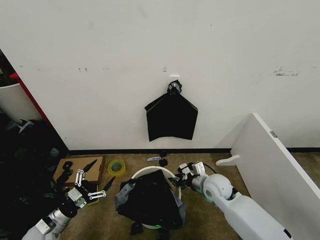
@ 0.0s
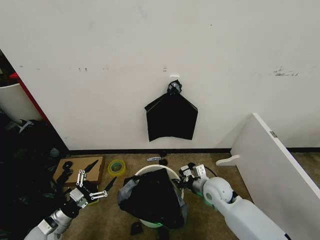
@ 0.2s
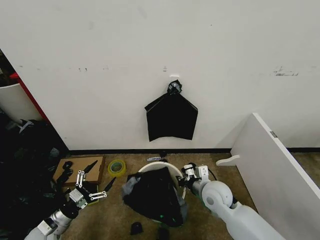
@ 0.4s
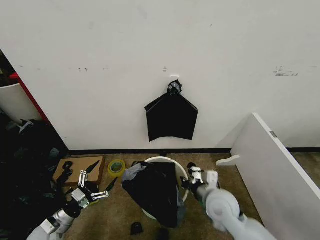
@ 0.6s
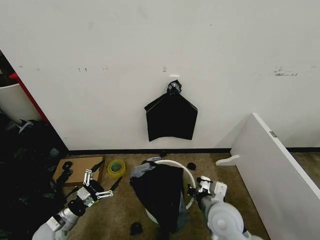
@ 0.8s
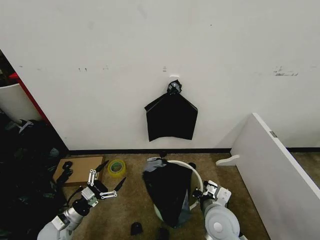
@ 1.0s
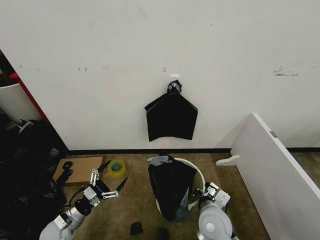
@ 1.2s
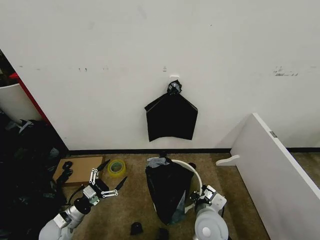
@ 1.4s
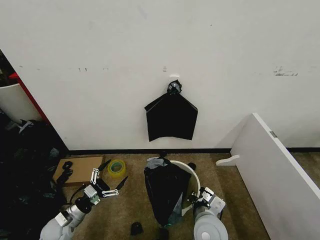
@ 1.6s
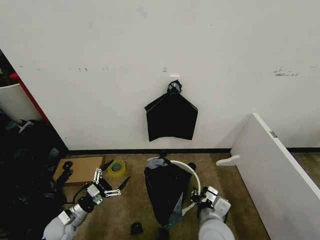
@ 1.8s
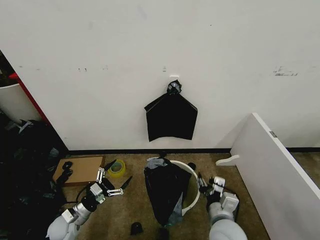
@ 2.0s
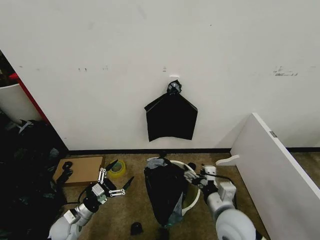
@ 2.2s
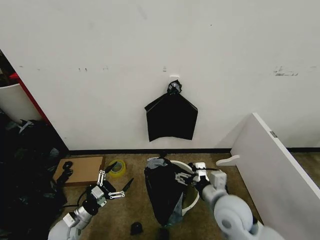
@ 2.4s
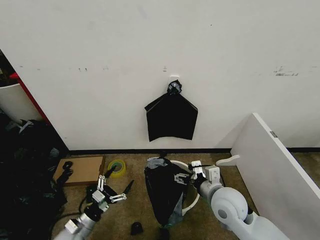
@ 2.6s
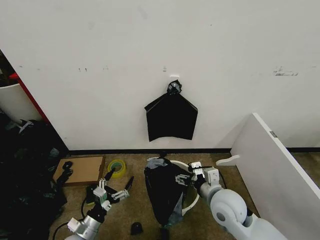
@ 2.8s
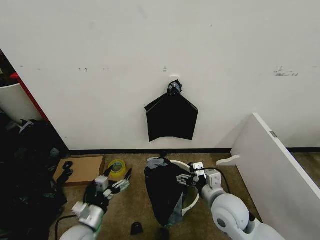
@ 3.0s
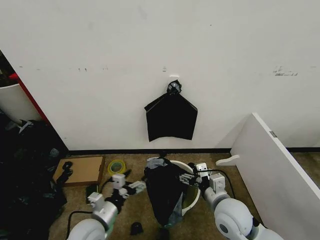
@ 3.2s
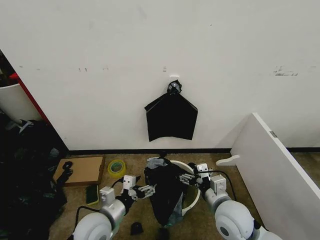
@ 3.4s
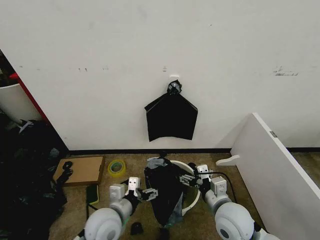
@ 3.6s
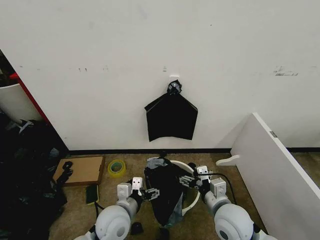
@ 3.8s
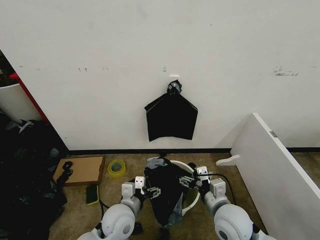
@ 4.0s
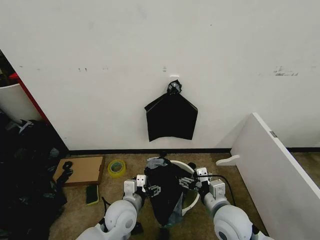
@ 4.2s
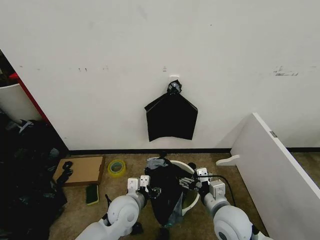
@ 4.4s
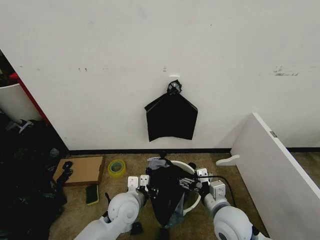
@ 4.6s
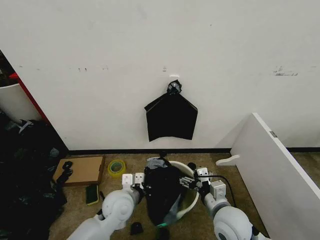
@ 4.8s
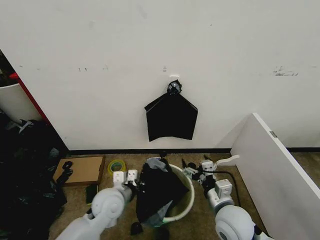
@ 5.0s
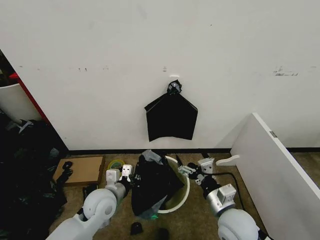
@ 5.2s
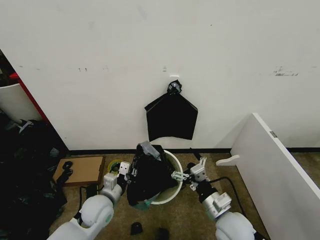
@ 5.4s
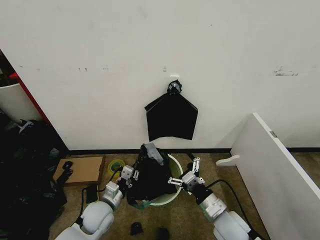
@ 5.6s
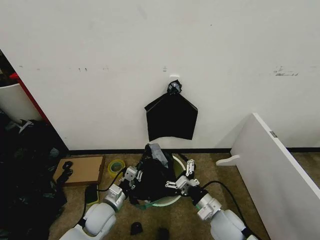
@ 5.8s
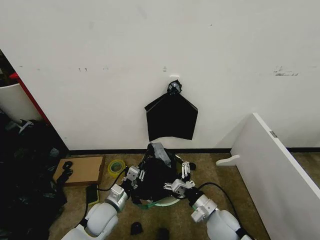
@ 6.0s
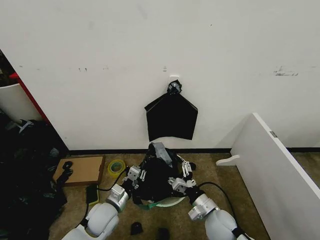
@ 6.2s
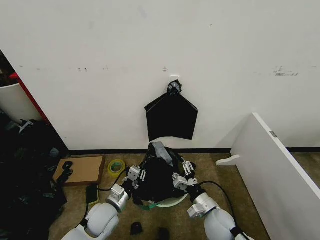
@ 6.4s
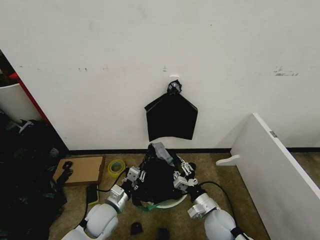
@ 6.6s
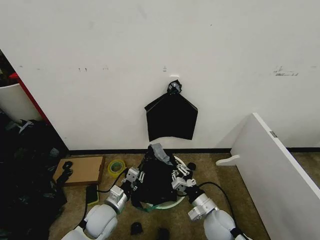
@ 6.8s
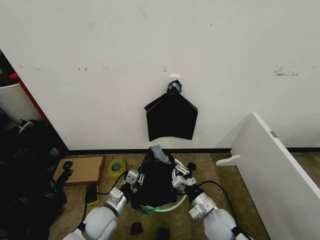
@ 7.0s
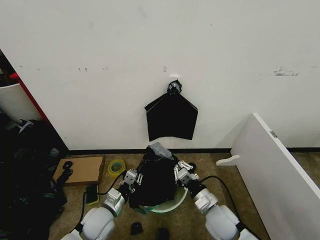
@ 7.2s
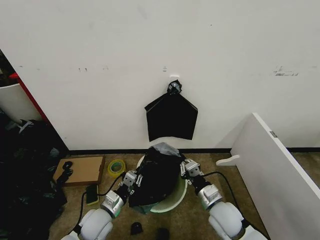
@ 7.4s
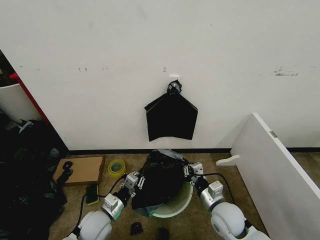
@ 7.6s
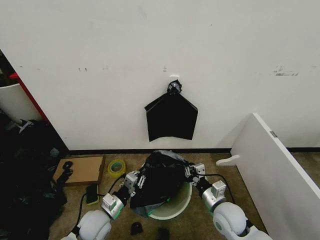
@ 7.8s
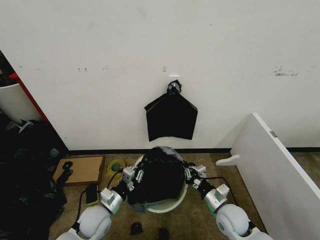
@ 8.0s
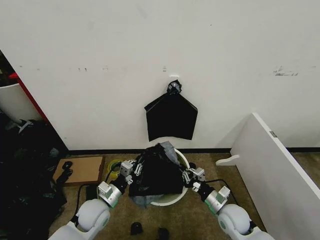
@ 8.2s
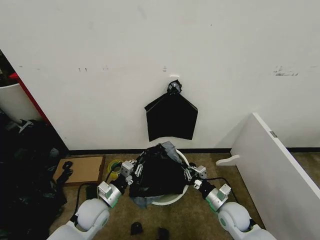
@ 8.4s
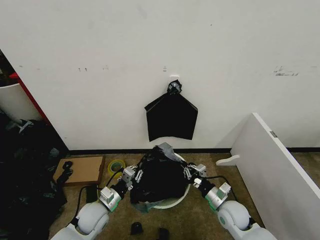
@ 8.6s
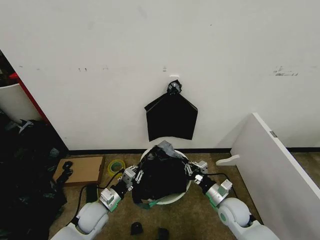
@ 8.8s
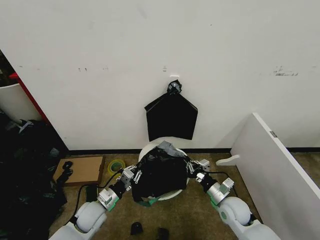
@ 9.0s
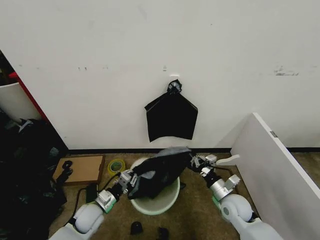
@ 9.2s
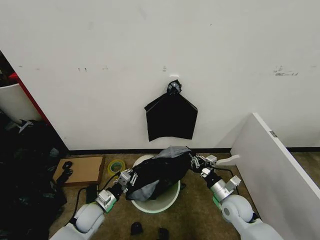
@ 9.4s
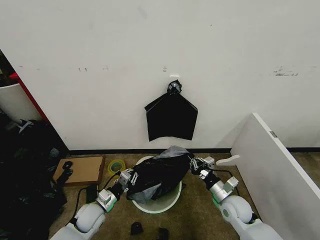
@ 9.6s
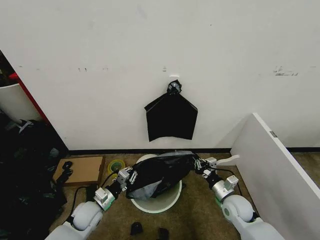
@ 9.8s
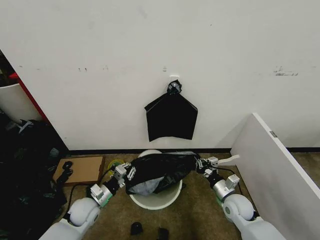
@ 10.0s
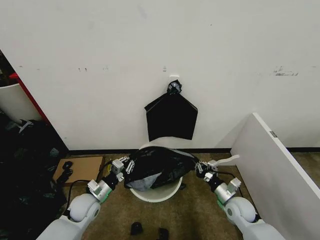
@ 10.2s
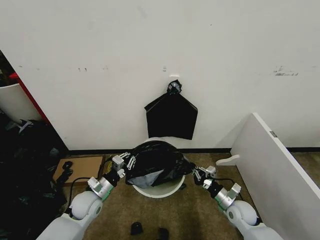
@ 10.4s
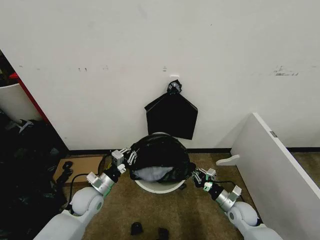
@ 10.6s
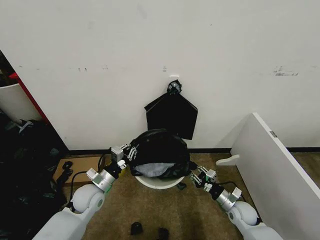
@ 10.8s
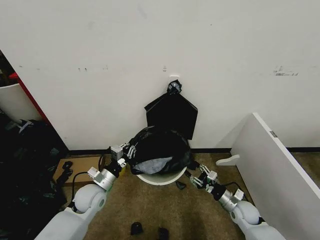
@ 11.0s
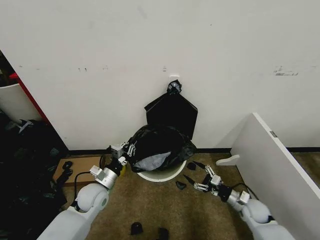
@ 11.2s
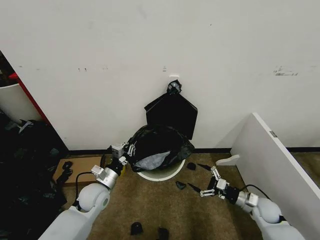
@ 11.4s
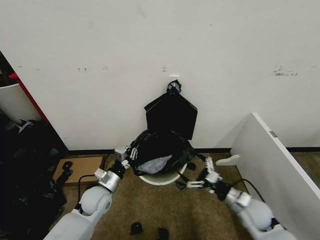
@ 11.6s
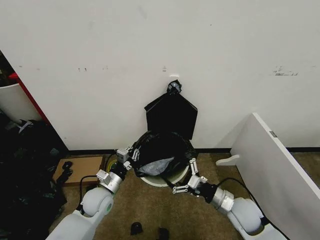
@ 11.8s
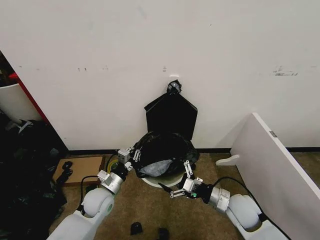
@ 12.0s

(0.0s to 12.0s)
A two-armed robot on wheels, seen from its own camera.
Task of the whole recording: Place the garbage bag over the trash bin.
0.0s - 1.6s: The right gripper goes about 15 cm backward and to the left.
1.6s - 3.0s: The left gripper goes approximately 10 cm to the right and upward, while the right gripper goes approximately 10 cm upward and to the right, and opens up.
3.0s - 4.4s: The left gripper travels to the right and forward by about 15 cm.
4.4s - 6.0s: The right gripper heads downward, covering roughly 5 cm, while the left gripper goes about 10 cm to the left and downward, and closes its fingers.
6.0s - 7.6s: The right gripper closes its fingers.
7.6s - 9.0s: The right gripper moves to the right, roughly 5 cm. Meanwhile the left gripper changes place by roughly 5 cm.
9.0s - 10.4s: The right gripper goes roughly 5 cm downward.
10.4s - 12.0s: The right gripper travels upward by roughly 10 cm, and opens its fingers.

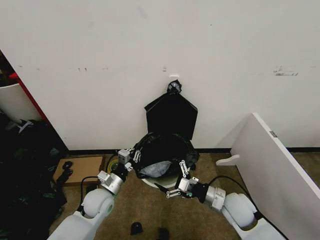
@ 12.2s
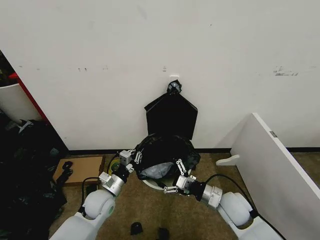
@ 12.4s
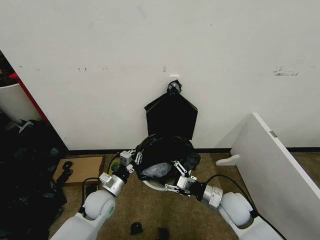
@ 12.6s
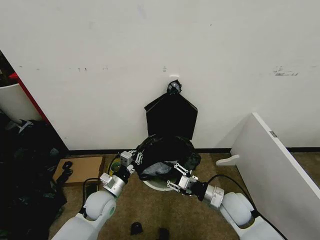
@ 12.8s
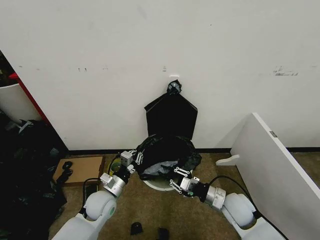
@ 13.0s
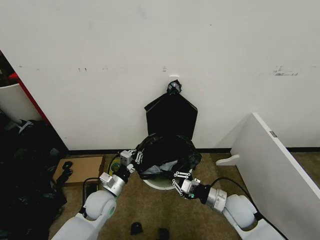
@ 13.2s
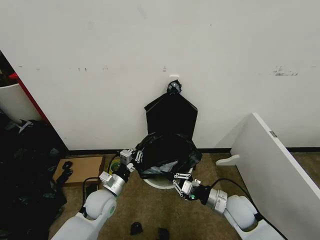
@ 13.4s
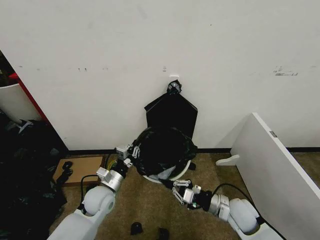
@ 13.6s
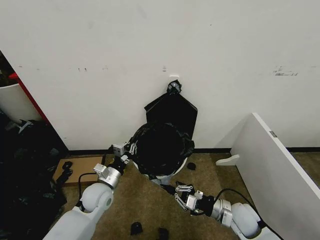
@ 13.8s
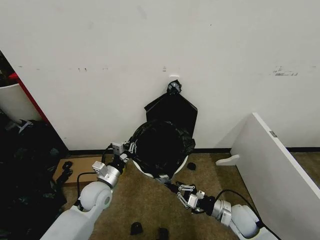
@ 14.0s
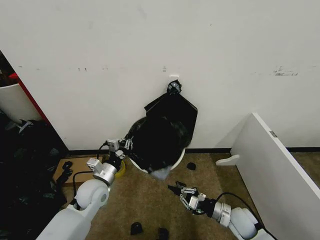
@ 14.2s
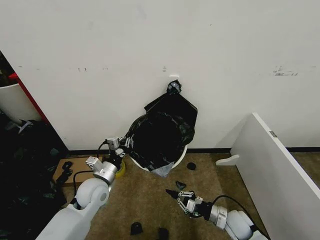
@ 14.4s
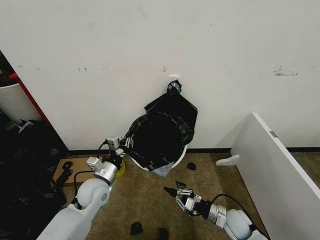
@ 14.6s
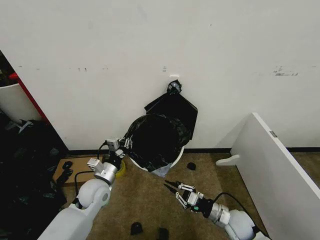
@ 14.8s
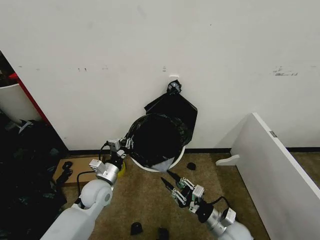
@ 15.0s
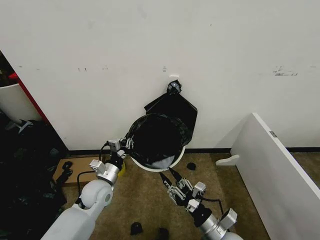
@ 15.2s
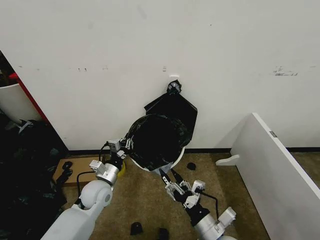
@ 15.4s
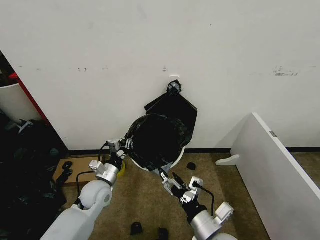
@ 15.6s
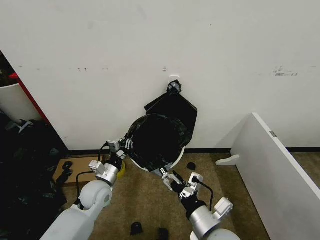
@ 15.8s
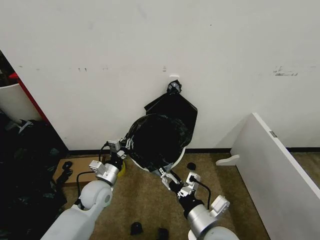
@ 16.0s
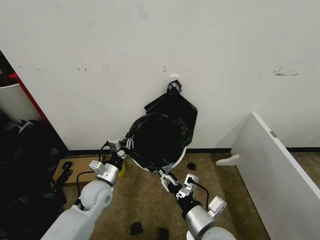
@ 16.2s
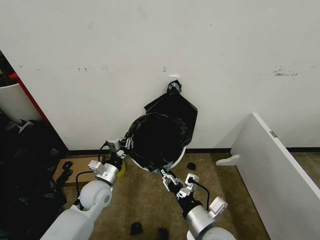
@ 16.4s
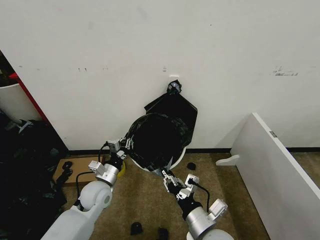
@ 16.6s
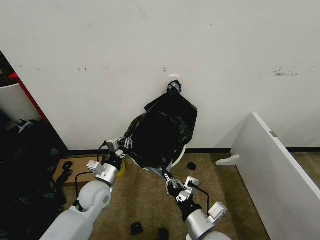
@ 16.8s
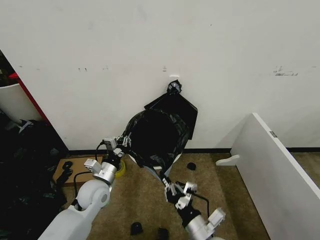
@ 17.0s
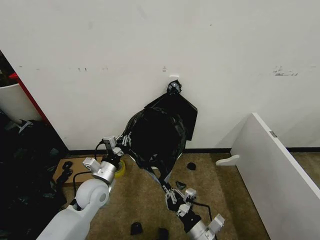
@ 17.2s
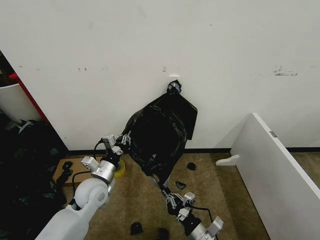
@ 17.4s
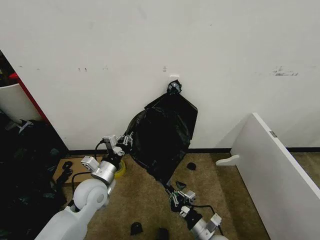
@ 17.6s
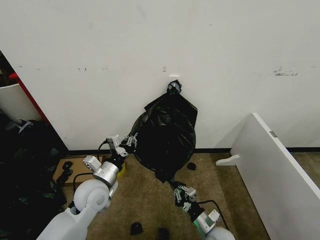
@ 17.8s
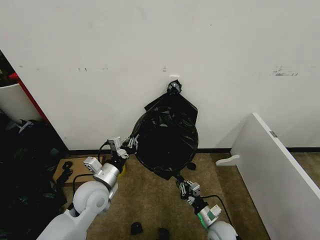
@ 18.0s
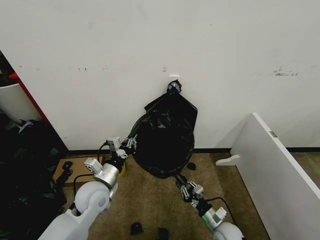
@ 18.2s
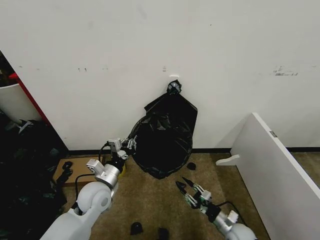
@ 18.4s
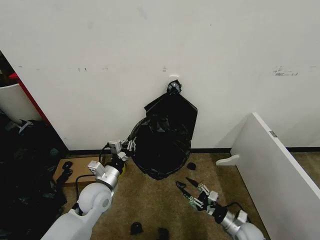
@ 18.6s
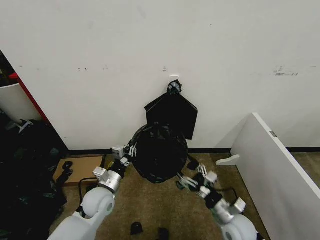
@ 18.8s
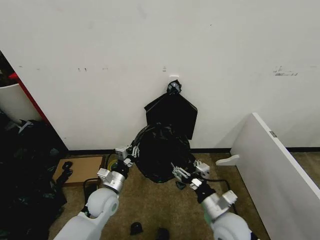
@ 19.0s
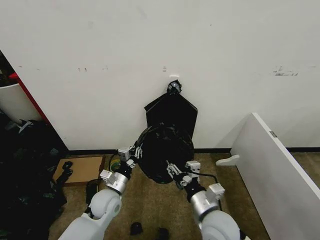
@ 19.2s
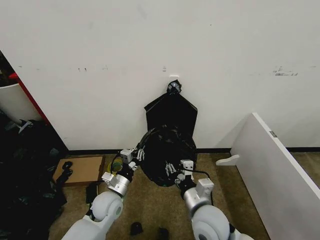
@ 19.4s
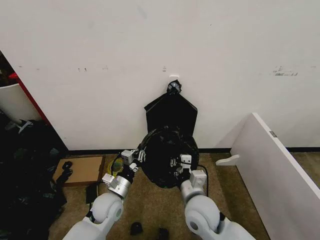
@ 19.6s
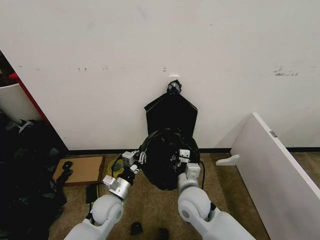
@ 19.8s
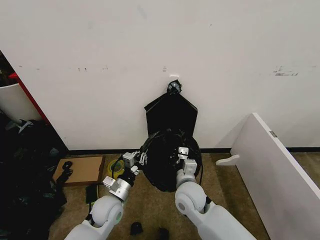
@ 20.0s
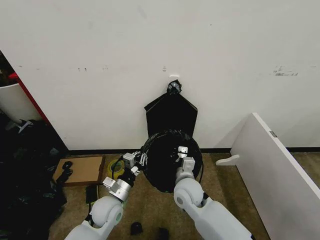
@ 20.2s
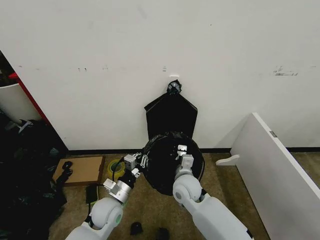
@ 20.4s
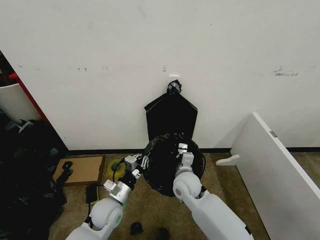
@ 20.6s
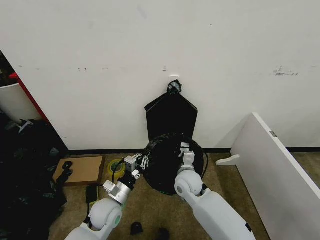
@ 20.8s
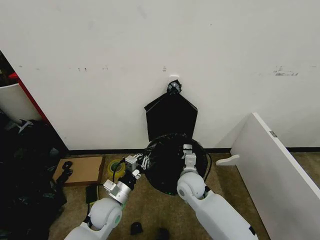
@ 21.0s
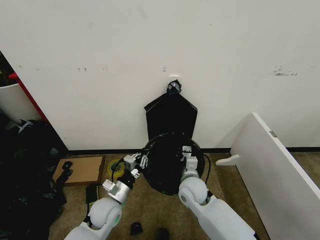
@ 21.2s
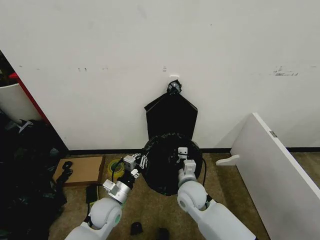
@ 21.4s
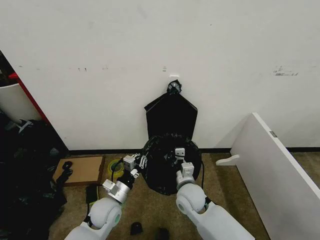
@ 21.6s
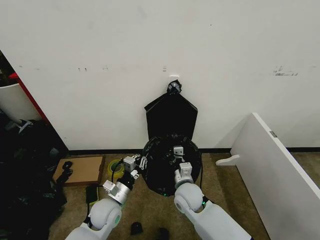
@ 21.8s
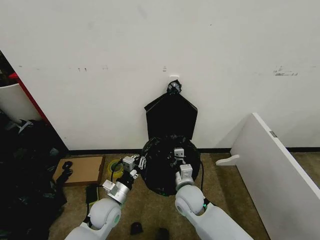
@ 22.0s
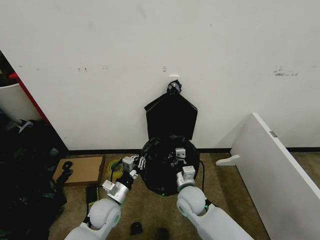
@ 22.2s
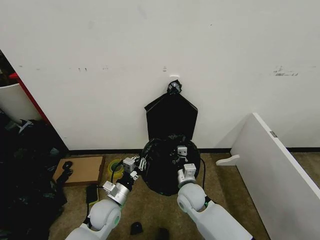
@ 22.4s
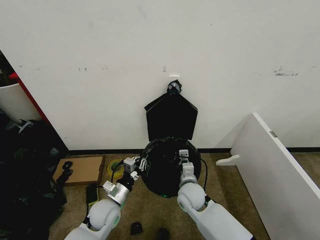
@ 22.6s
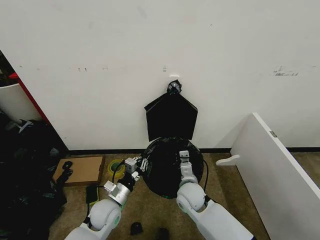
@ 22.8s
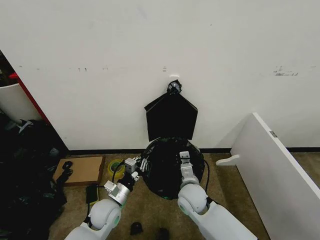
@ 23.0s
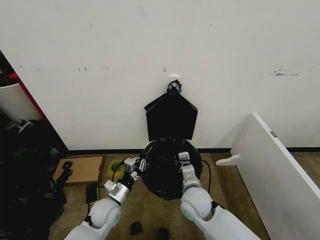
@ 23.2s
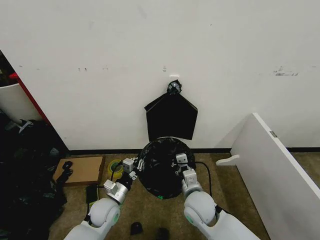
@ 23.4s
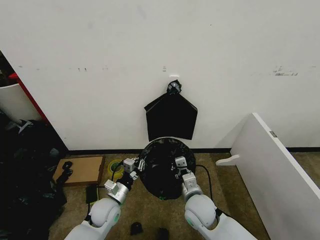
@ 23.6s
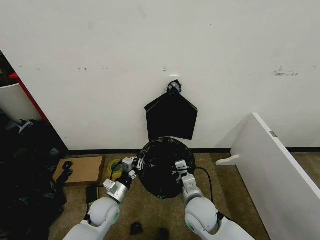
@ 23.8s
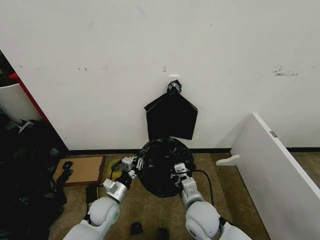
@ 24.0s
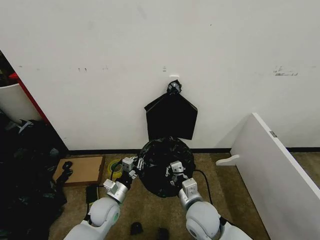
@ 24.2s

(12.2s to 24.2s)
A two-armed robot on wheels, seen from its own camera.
Task of the whole recording: Place the garbage bag over the trash bin.
12.2s - 13.8s: The right gripper shifts by roughly 5 cm, and closes up.
13.8s - 15.2s: The right gripper moves backward and to the left, approximately 10 cm, travels downward and back again, some 10 cm each way, and opens up.
15.2s - 16.6s: The right gripper travels upward and to the left by some 10 cm, and opens, then closes once more.
16.6s - 18.2s: The right gripper heads downward and to the right, covering roughly 25 cm; the left gripper shifts by roughly 5 cm.
18.2s - 19.8s: The left gripper shifts approximately 10 cm downward; the right gripper goes some 25 cm upward and to the left, and opens, then closes again.
19.8s - 21.2s: The right gripper shifts roughly 5 cm forward.
21.2s - 22.6s: The grippers stay close to where they were, moving slightly.
22.6s - 24.2s: The right gripper moves backward, some 10 cm.
